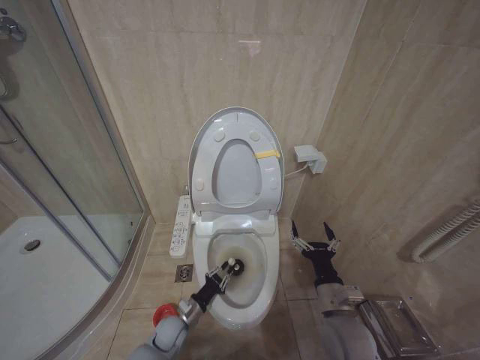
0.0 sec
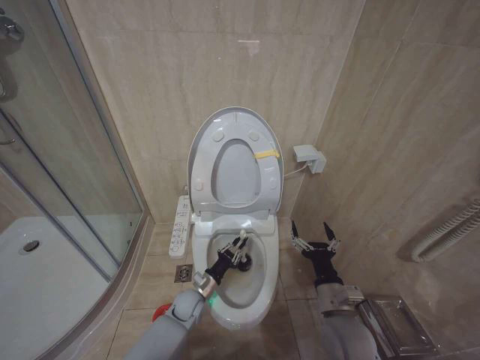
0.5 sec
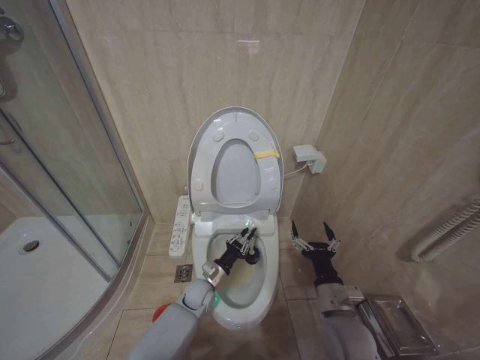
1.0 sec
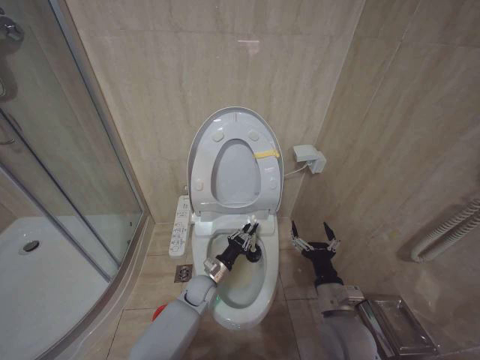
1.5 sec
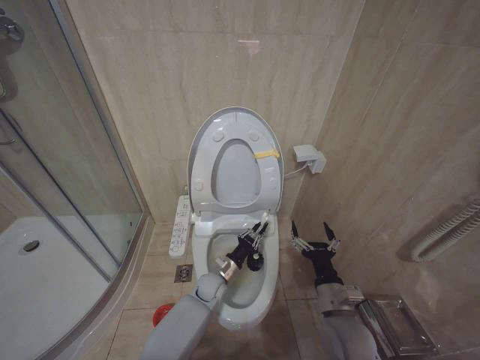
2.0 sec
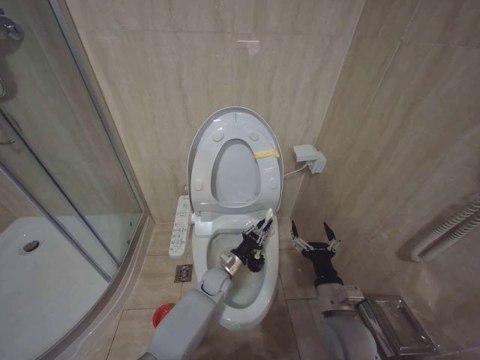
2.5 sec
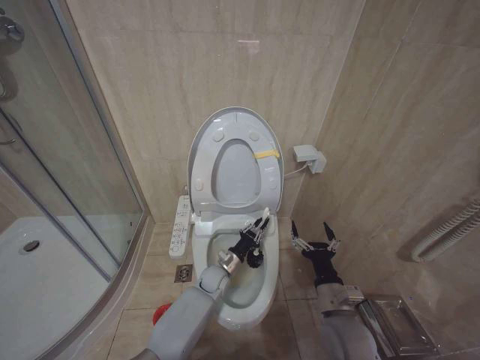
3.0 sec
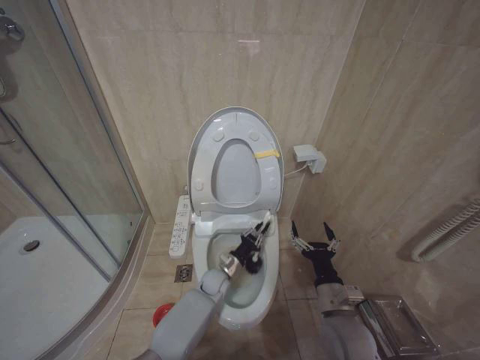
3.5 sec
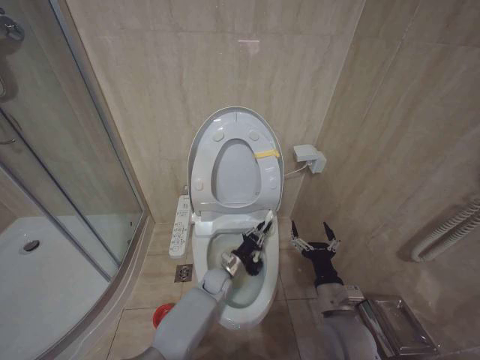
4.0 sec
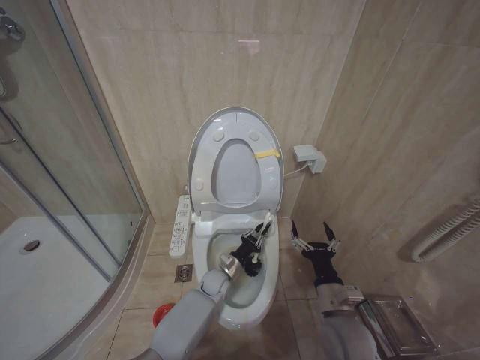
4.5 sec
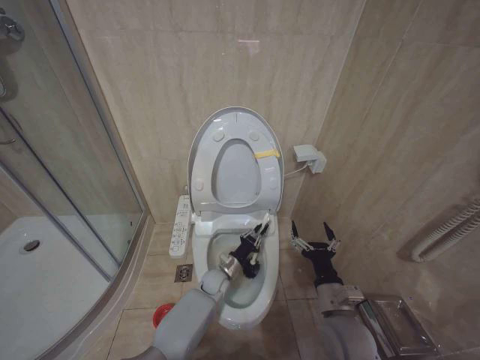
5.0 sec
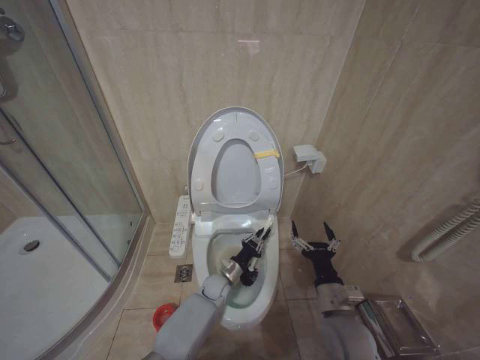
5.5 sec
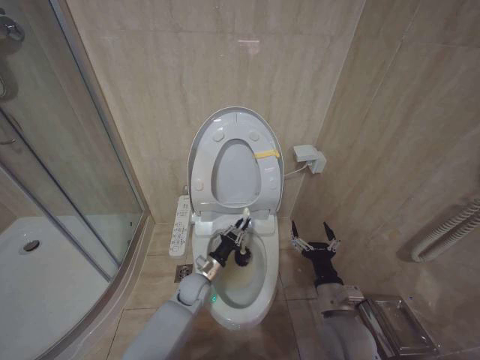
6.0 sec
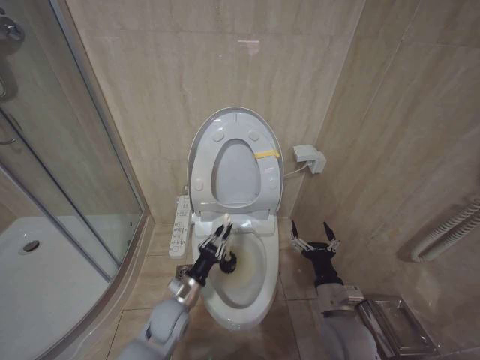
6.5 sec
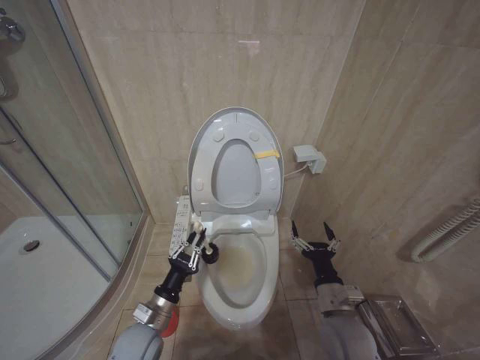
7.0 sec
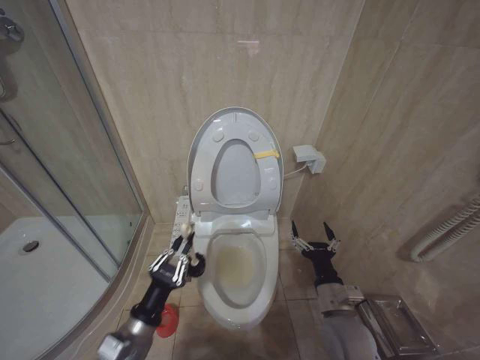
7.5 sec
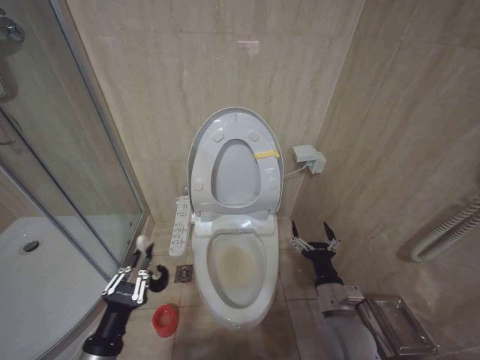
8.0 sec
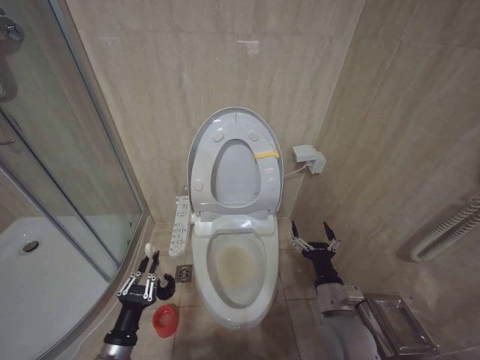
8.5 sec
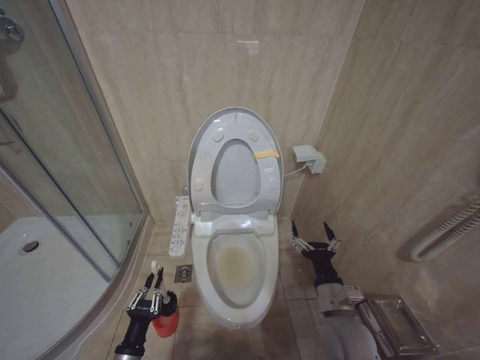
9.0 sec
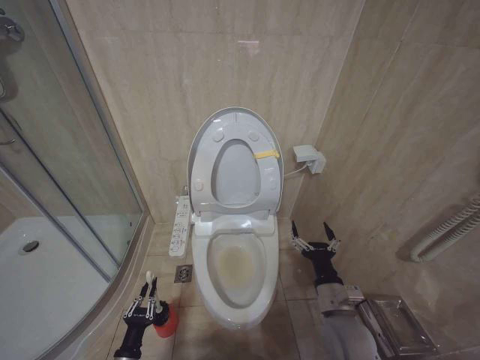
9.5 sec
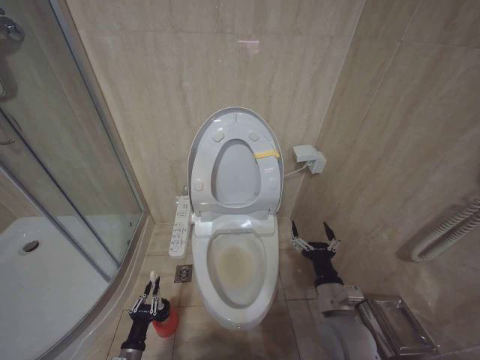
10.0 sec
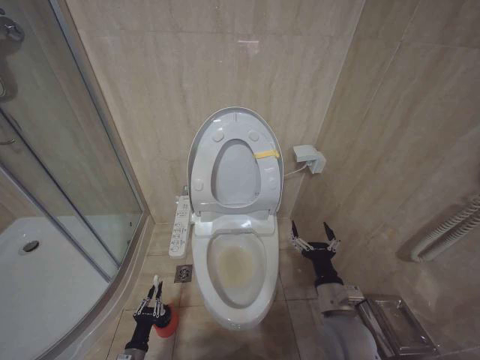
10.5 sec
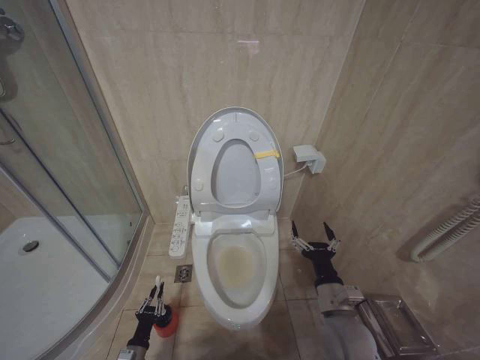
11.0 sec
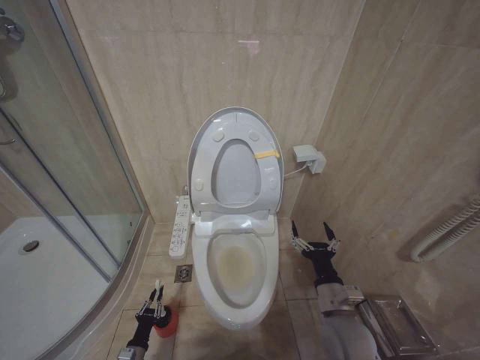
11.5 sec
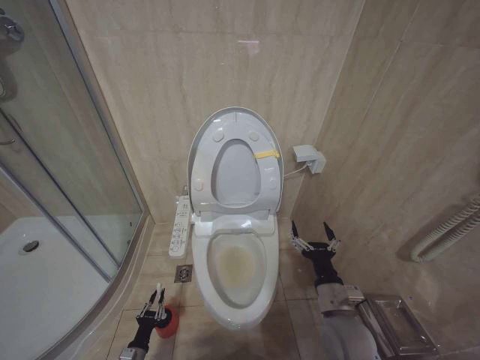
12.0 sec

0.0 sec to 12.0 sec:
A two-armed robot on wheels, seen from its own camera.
Task of the whole recording: Open the toilet lid, clean the toilet bowl with a toilet brush, close the toilet lid, and flush.
0.0 sec to 2.0 sec: The left gripper heads to the right, forward and upward, covering about 15 cm.
4.0 sec to 6.0 sec: The left gripper heads to the left, covering roughly 5 cm.
6.0 sec to 8.0 sec: The left gripper shifts approximately 35 cm backward, to the left and upward.
8.0 sec to 10.0 sec: The left gripper is displaced downward by roughly 25 cm.
10.0 sec to 12.0 sec: The left gripper is displaced downward by about 10 cm.

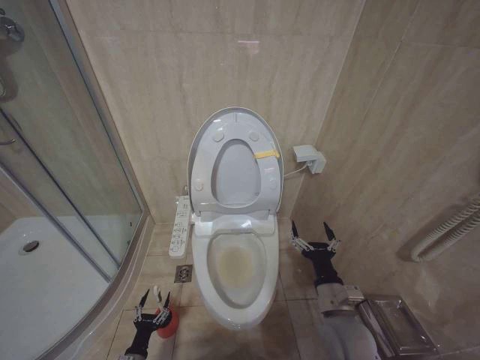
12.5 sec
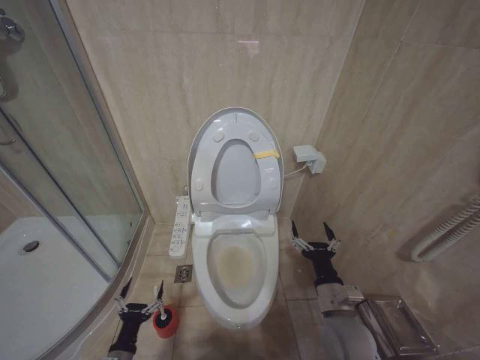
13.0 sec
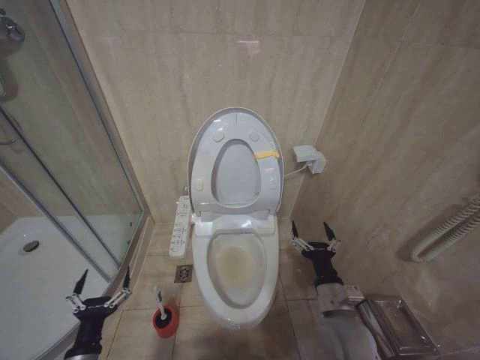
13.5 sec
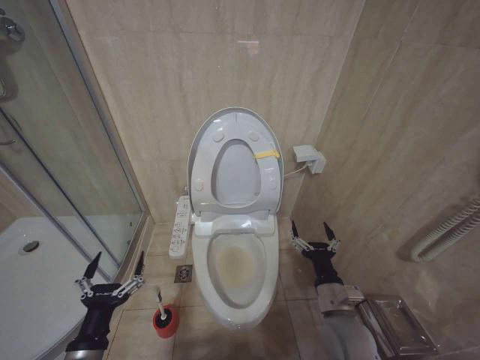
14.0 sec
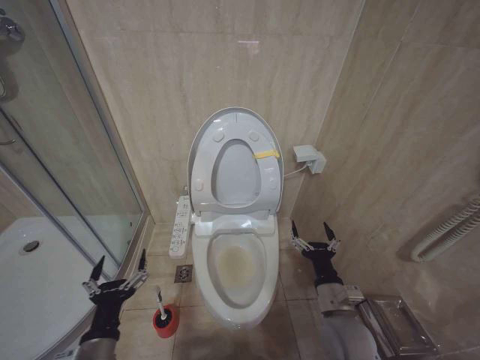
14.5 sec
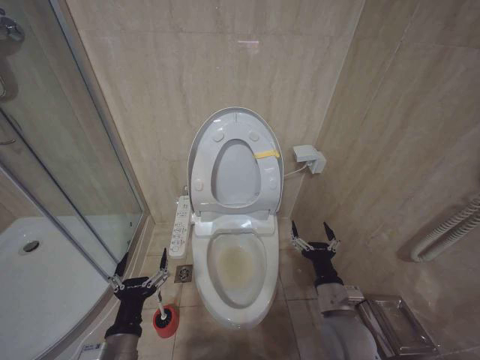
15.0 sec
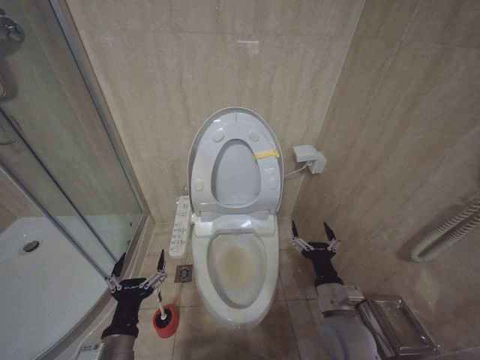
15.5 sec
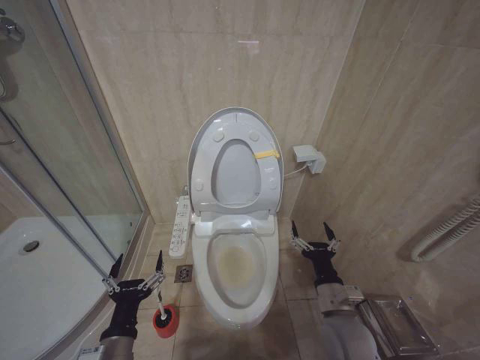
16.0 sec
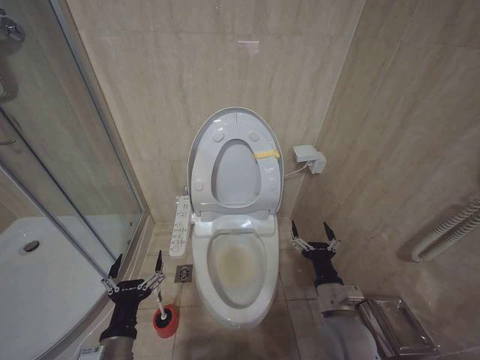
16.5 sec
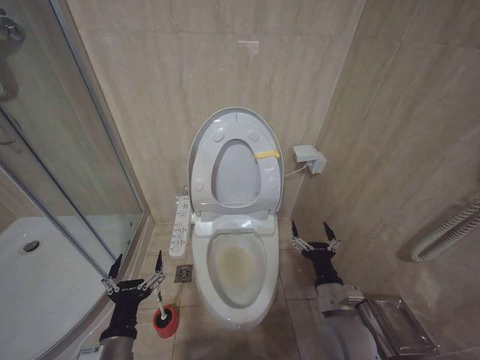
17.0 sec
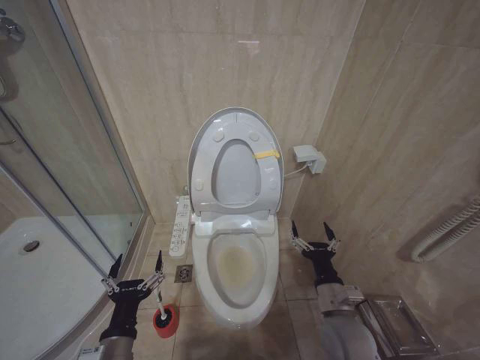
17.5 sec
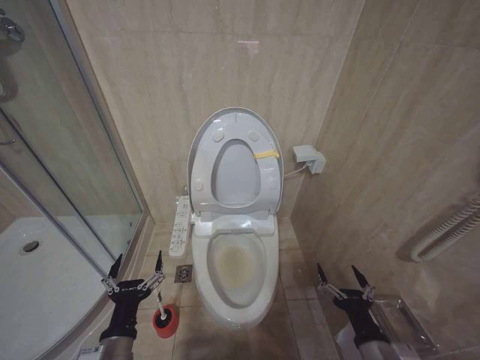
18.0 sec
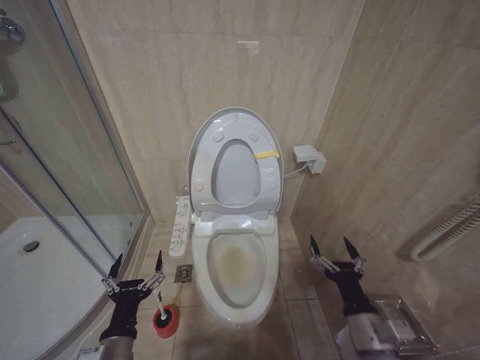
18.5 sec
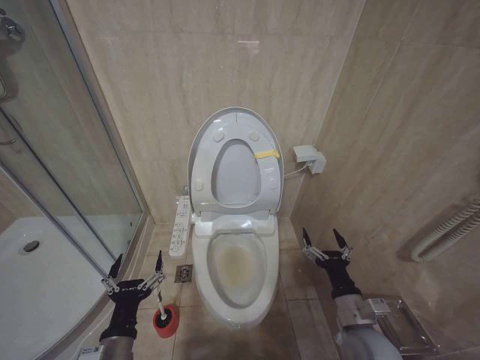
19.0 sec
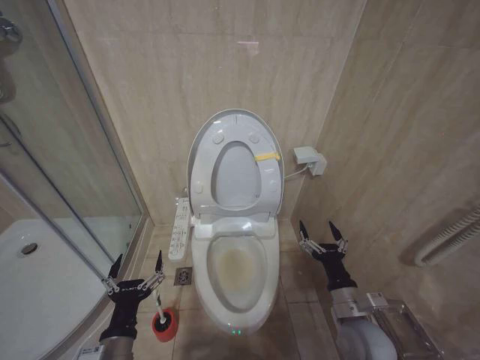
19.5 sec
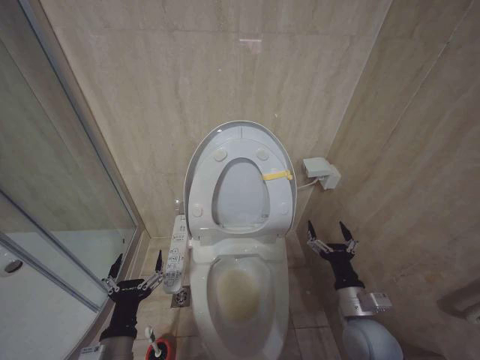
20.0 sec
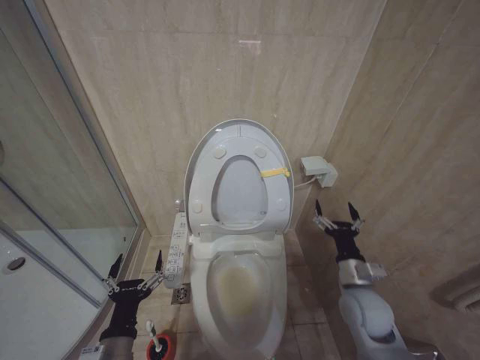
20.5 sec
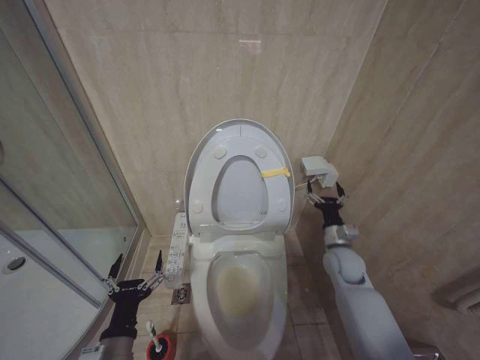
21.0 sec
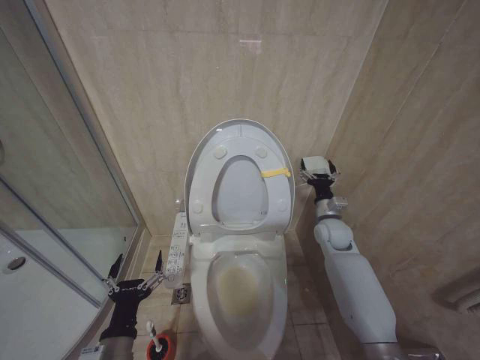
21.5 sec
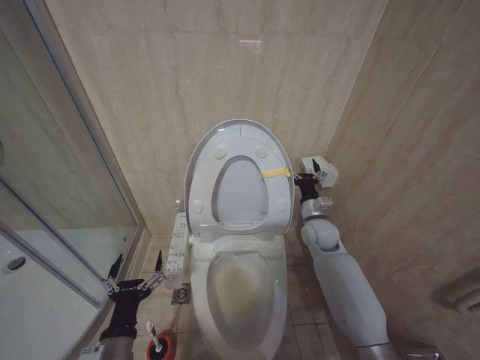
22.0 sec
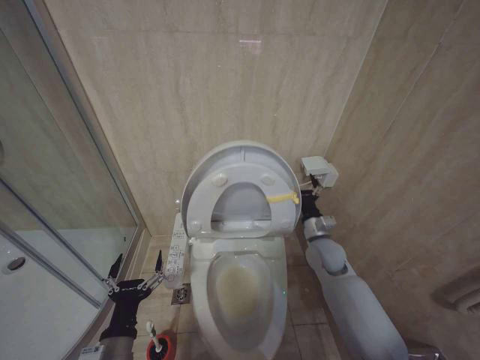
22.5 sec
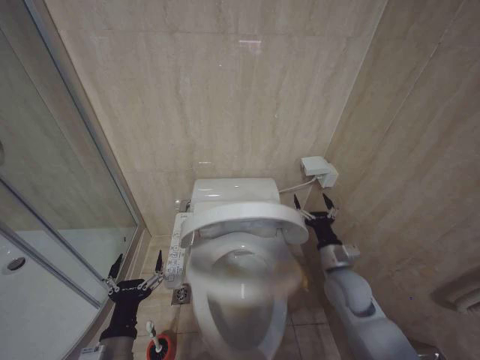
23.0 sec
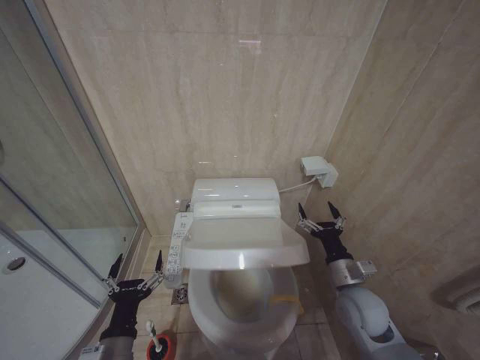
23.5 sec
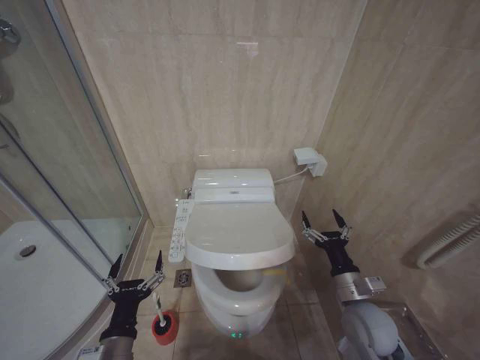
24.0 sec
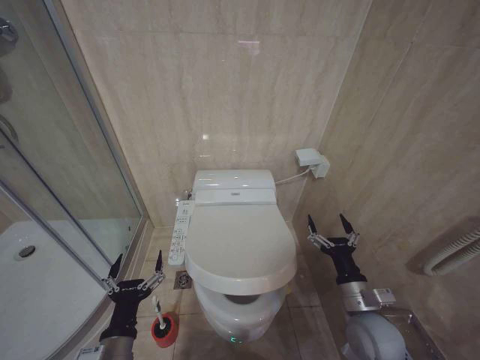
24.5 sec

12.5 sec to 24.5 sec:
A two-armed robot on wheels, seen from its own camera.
Task of the whole recording: Open the toilet lid, clean the toilet bowl with a toilet brush, close the toilet lid, and flush.
12.5 sec to 14.5 sec: The left gripper goes about 30 cm upward, and opens its fingers.
14.5 sec to 16.5 sec: The grippers make only small movements.
16.5 sec to 18.5 sec: The right gripper moves backward, roughly 10 cm.
18.5 sec to 20.5 sec: The right gripper heads forward, covering some 10 cm.
20.5 sec to 22.5 sec: The right gripper heads forward, covering roughly 15 cm.
22.5 sec to 24.5 sec: The right gripper travels backward by about 20 cm.

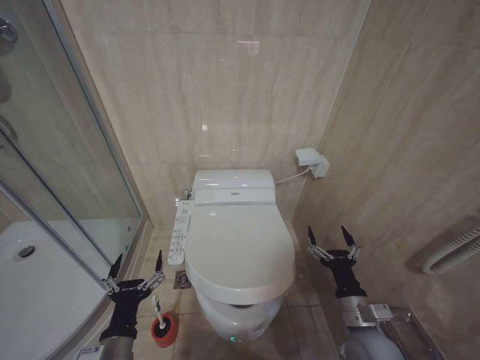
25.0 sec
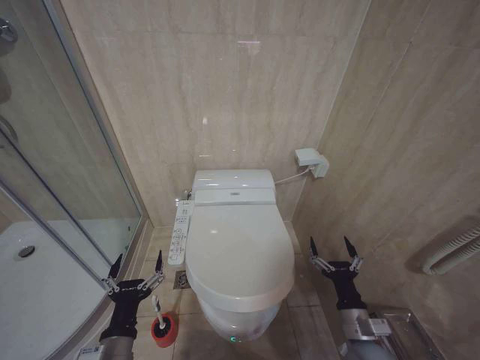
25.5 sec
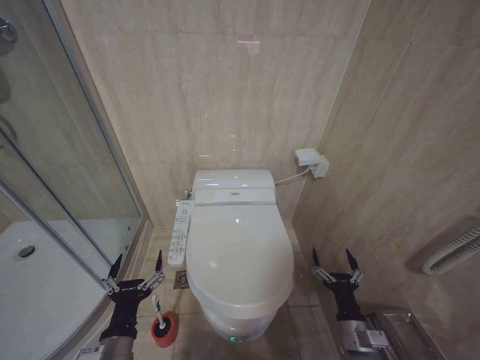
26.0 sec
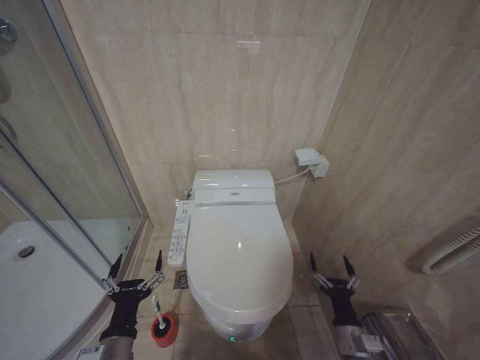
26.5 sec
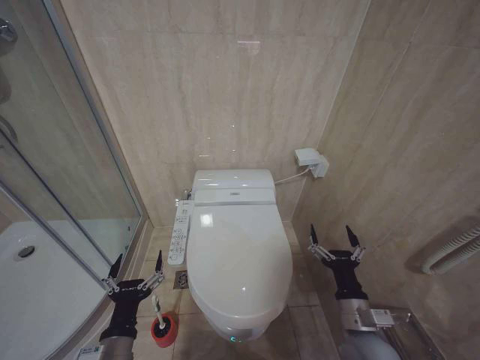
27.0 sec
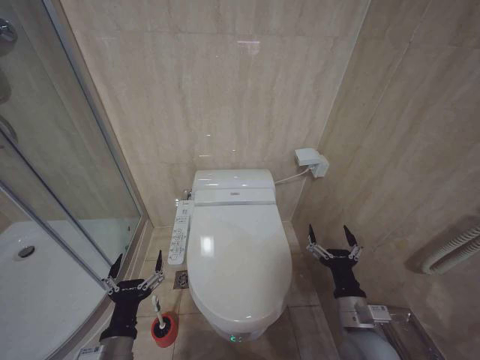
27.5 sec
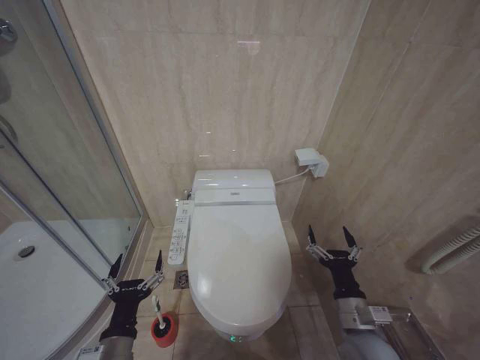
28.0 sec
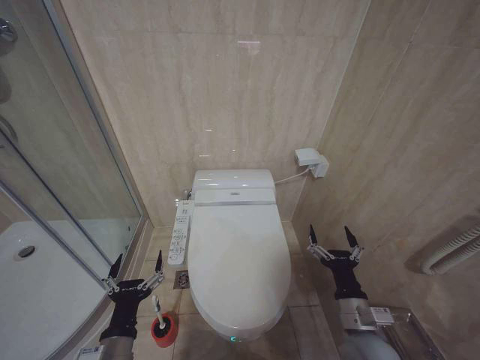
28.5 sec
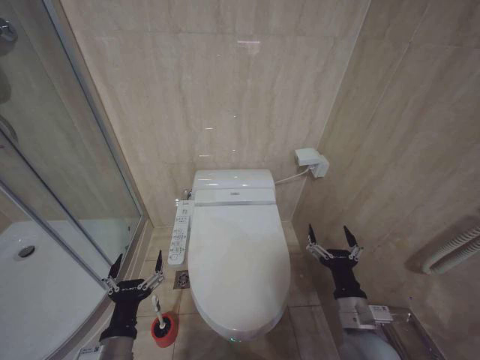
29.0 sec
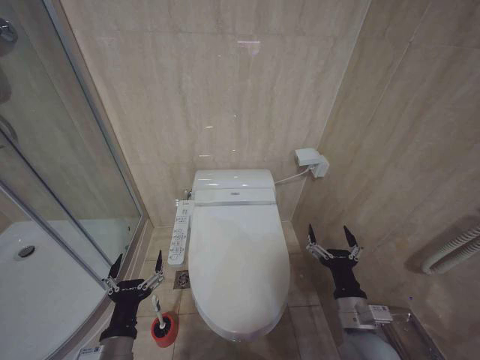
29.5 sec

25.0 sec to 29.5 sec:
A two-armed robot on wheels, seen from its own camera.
Task of the whole recording: Open the toilet lid, clean the toilet bowl with a toilet brush, close the toilet lid, and flush.
25.0 sec to 27.0 sec: The right gripper reaches approximately 10 cm downward, then returns.
